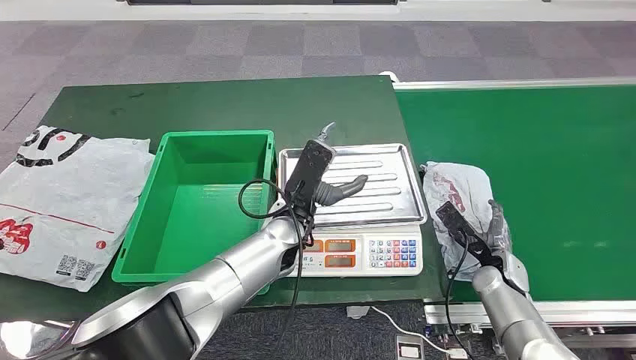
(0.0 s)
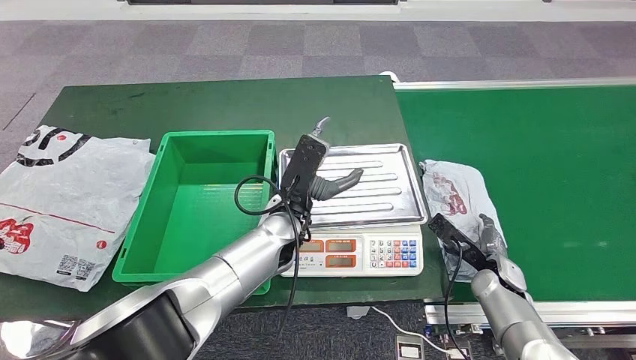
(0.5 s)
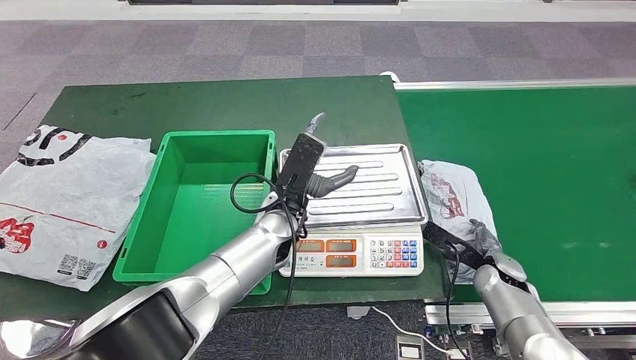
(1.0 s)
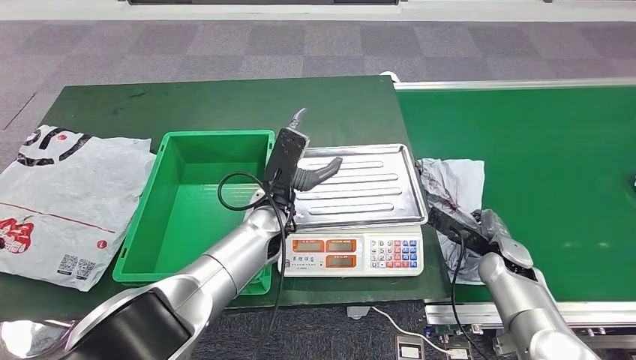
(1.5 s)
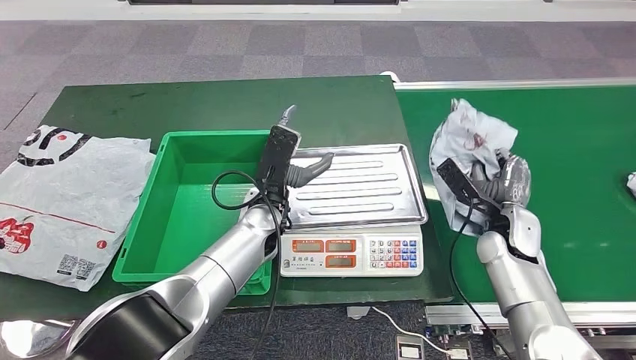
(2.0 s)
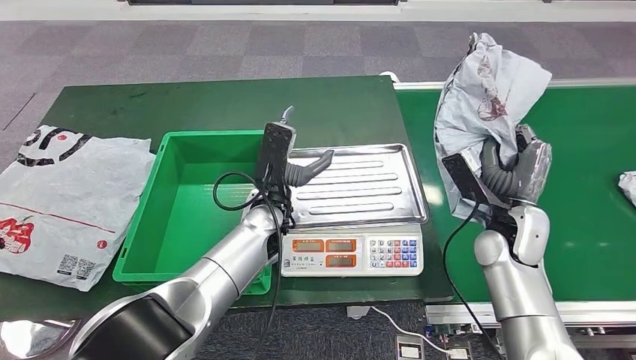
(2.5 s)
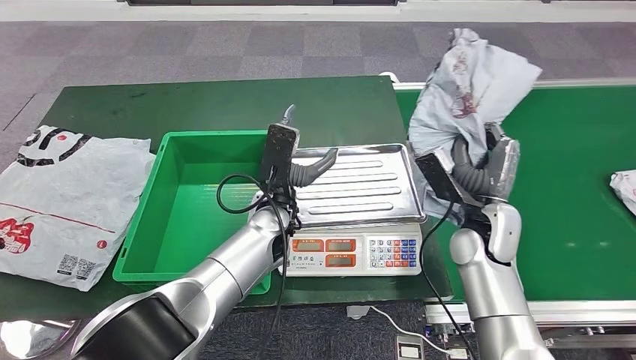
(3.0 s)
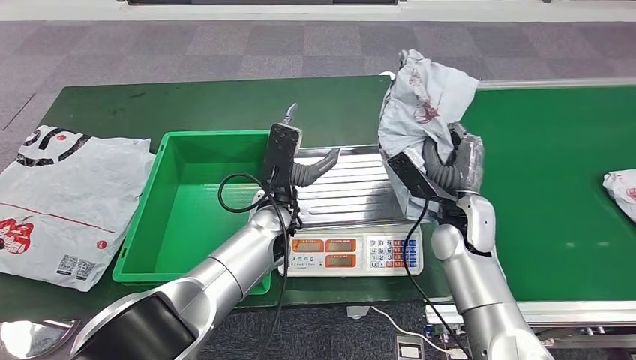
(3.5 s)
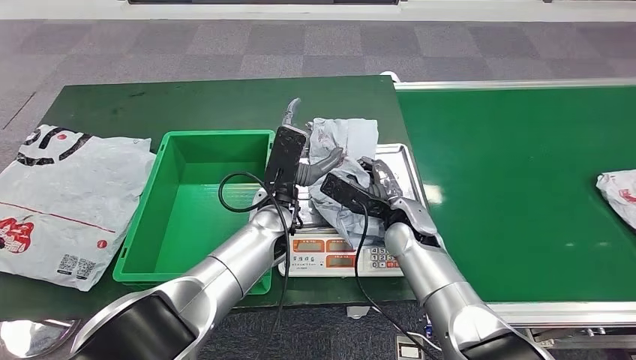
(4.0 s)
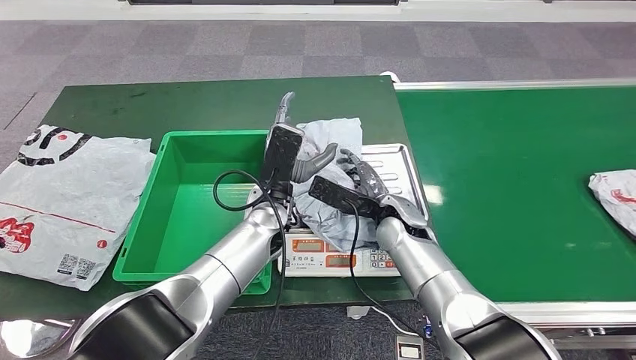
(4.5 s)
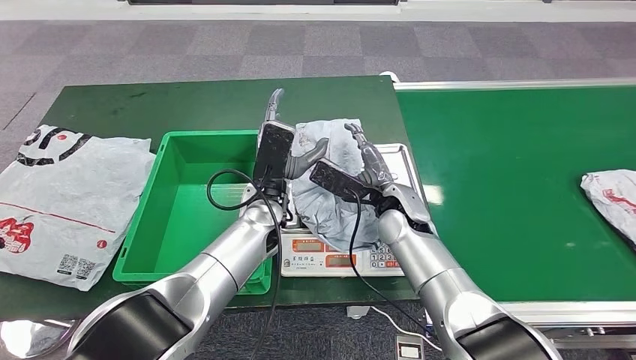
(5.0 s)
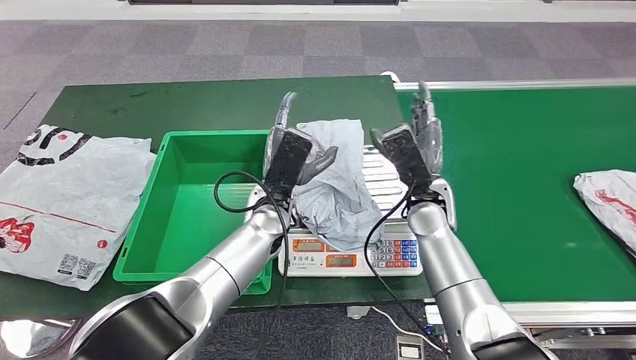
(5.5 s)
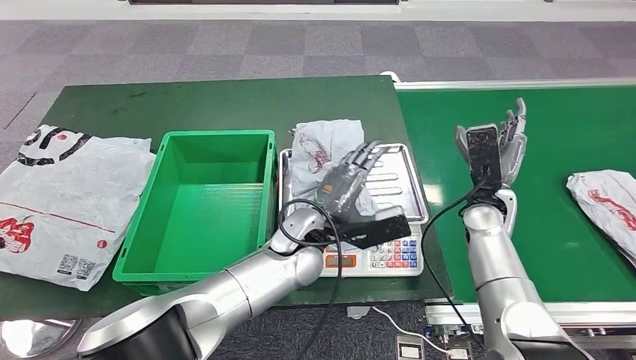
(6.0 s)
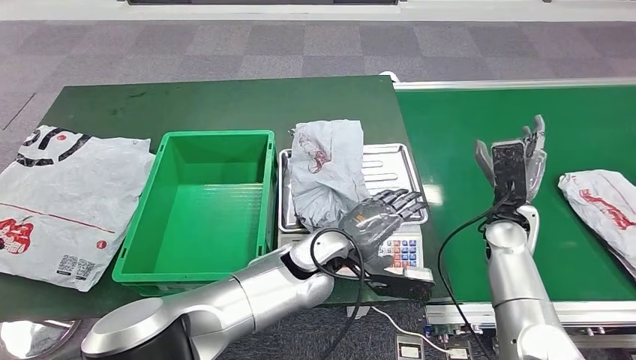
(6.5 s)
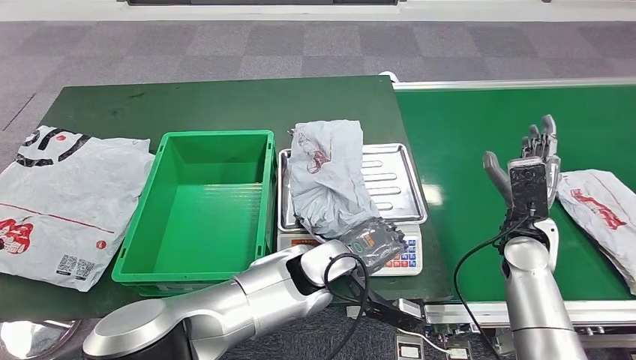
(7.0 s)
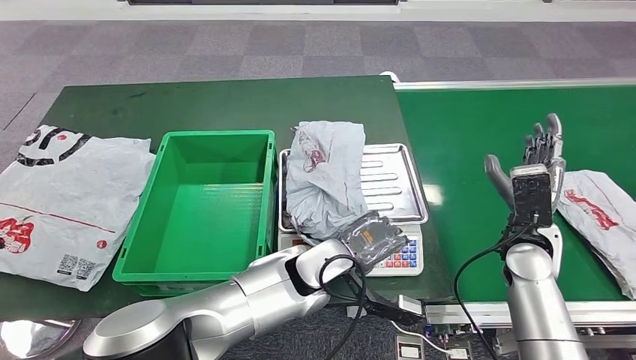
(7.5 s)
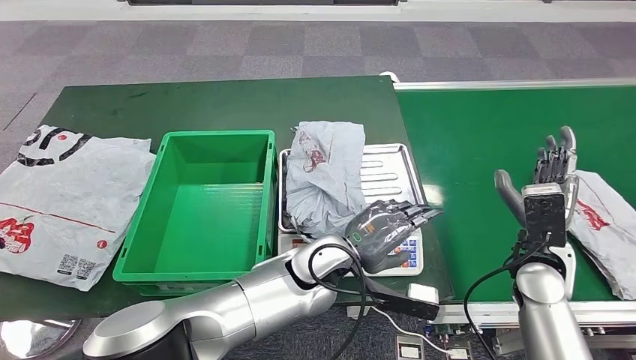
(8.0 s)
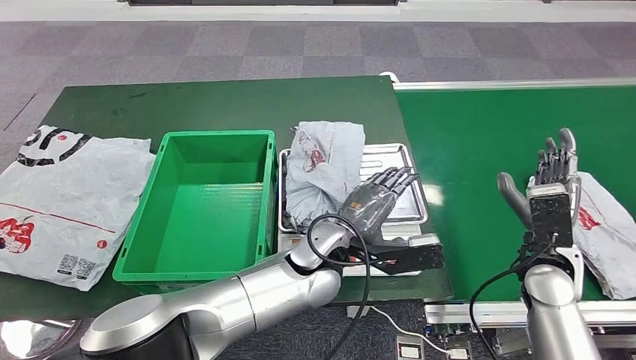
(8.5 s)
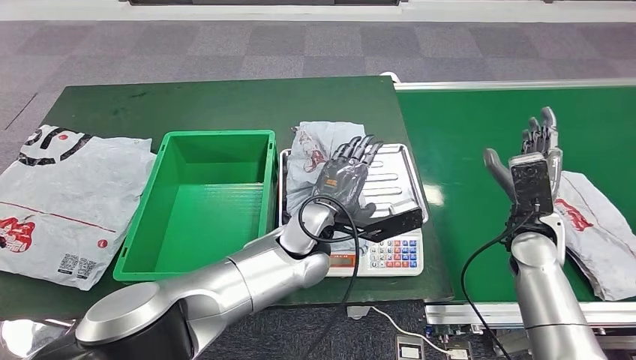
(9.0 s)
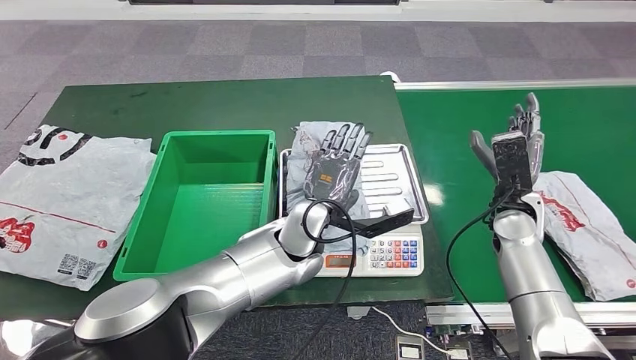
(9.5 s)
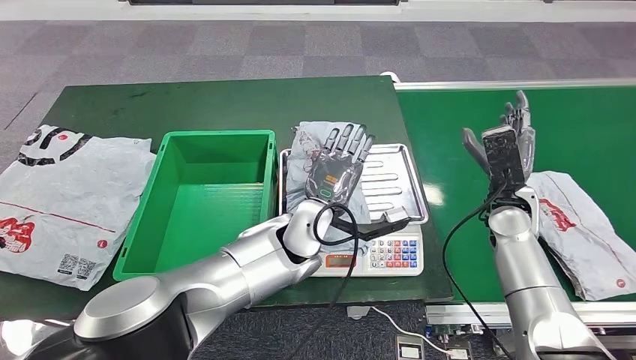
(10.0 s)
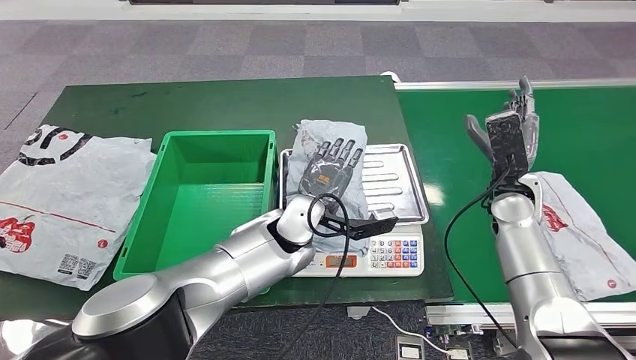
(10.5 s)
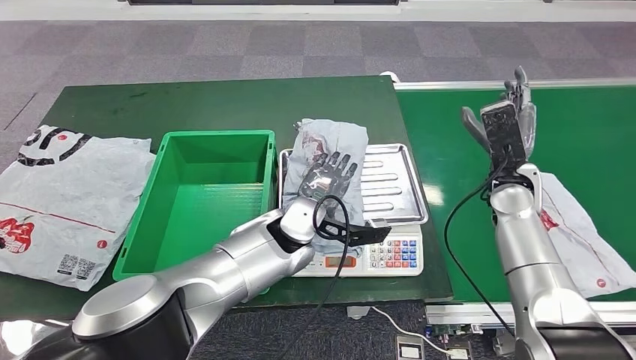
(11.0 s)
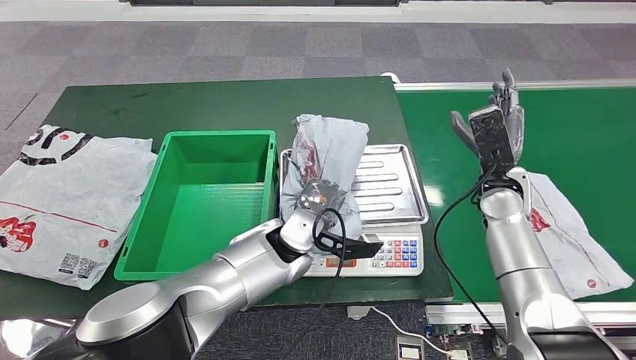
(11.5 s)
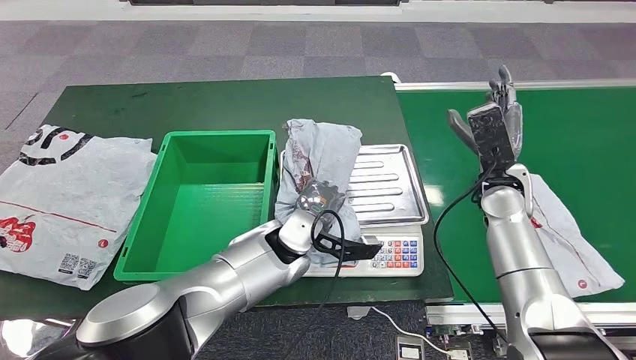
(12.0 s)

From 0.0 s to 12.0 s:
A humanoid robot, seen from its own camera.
Step, from 0.0 s to 2.0 s: Take the parcel off the conveyor belt.
Step, from 2.5 s to 5.5 s: Place the parcel onto the inbound machine.

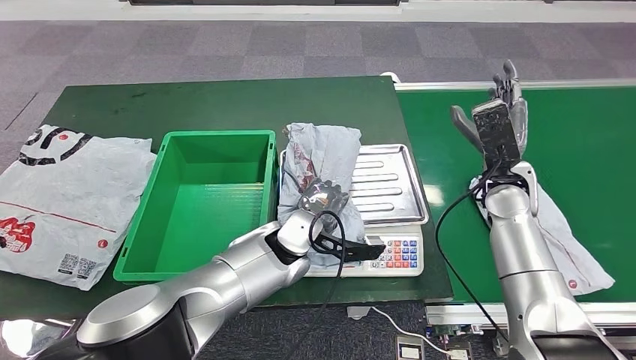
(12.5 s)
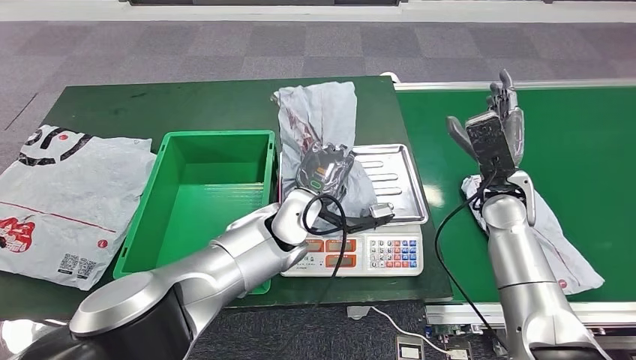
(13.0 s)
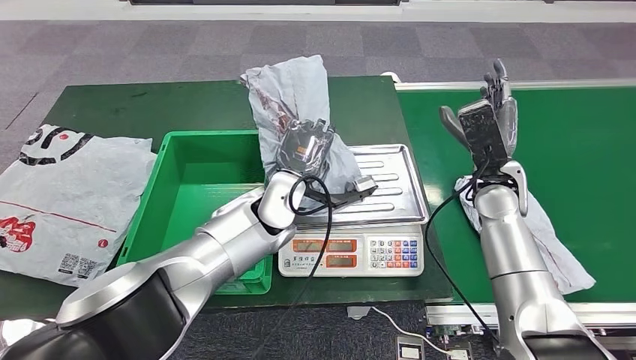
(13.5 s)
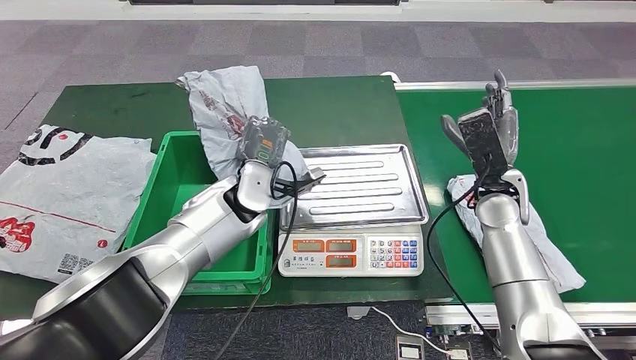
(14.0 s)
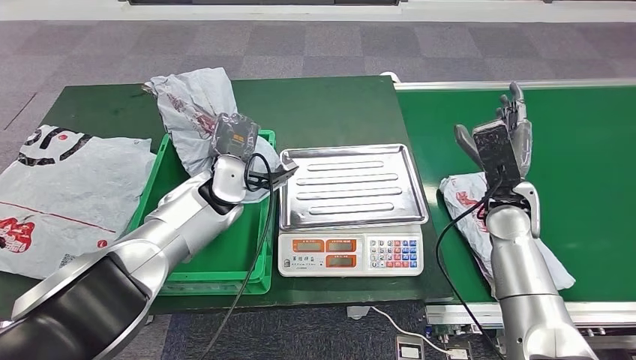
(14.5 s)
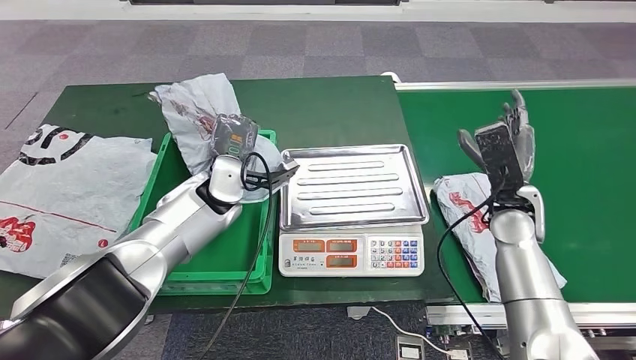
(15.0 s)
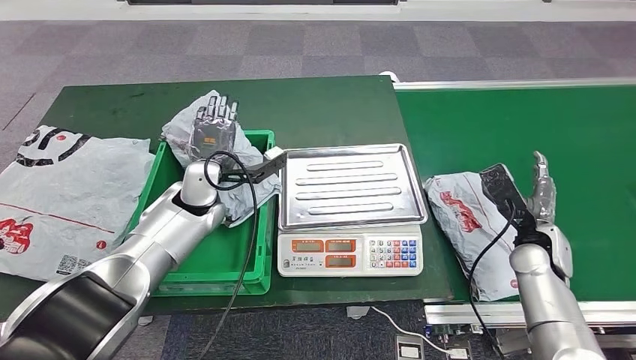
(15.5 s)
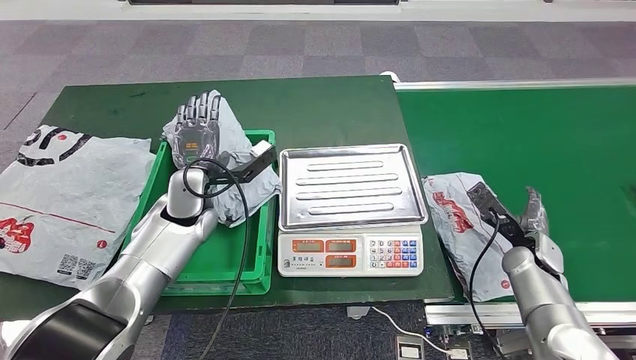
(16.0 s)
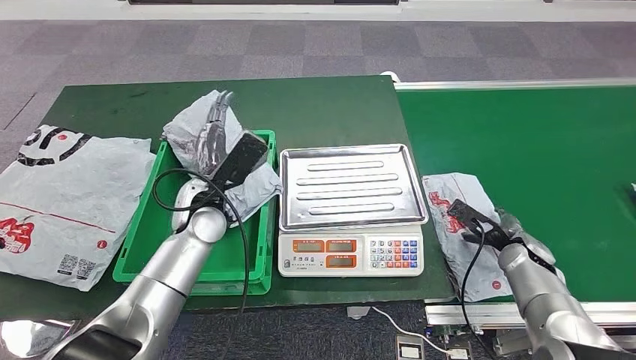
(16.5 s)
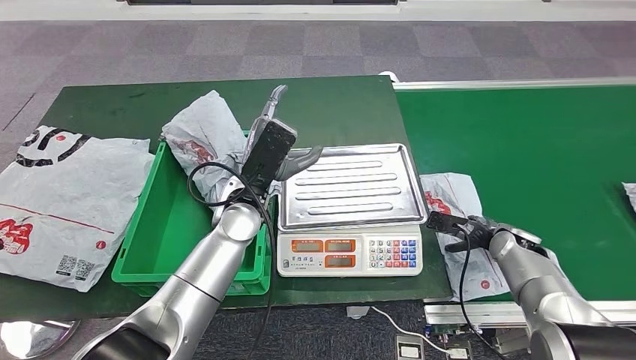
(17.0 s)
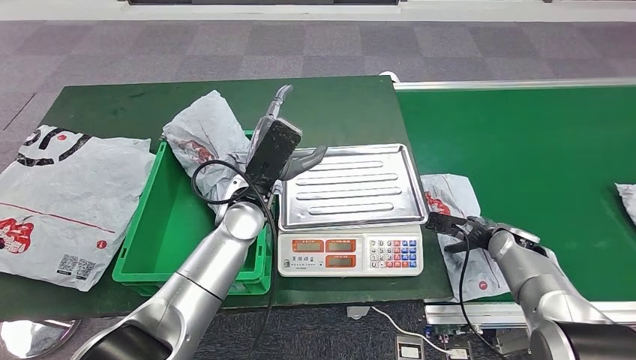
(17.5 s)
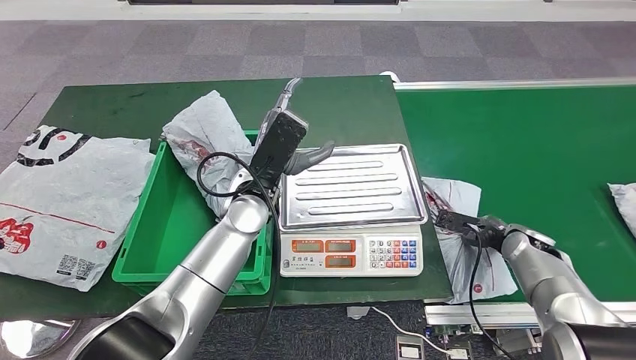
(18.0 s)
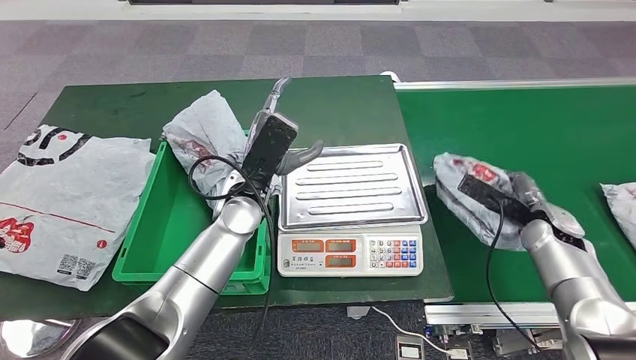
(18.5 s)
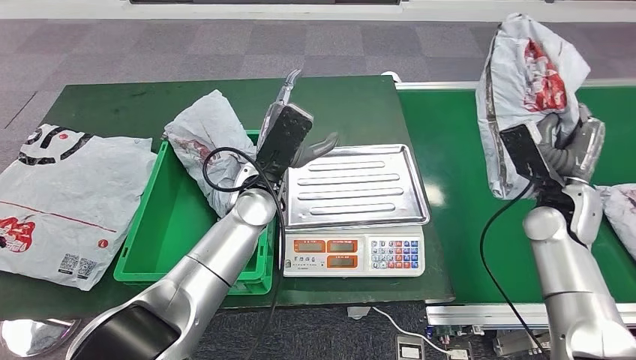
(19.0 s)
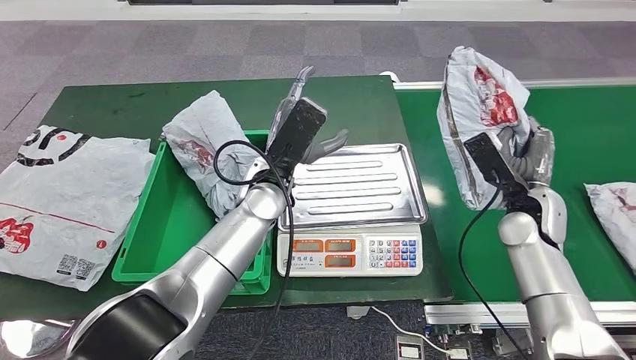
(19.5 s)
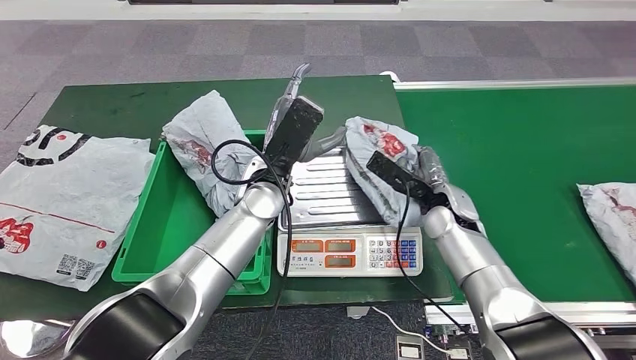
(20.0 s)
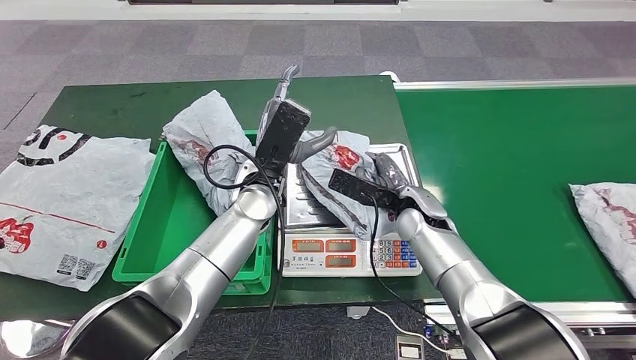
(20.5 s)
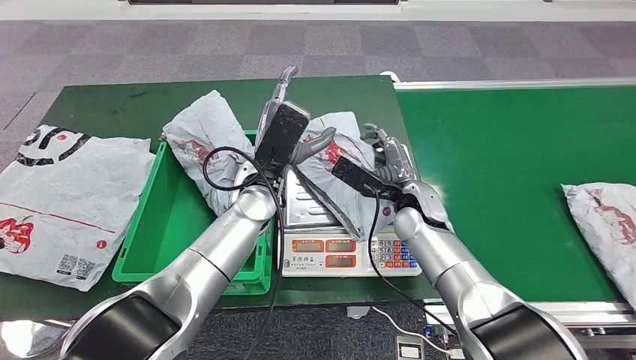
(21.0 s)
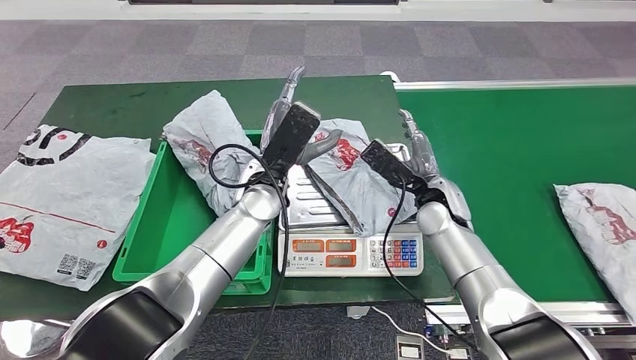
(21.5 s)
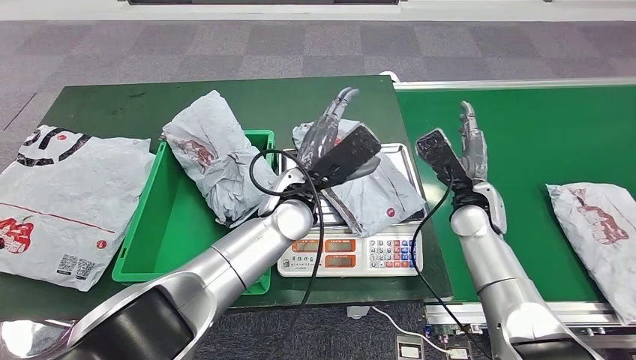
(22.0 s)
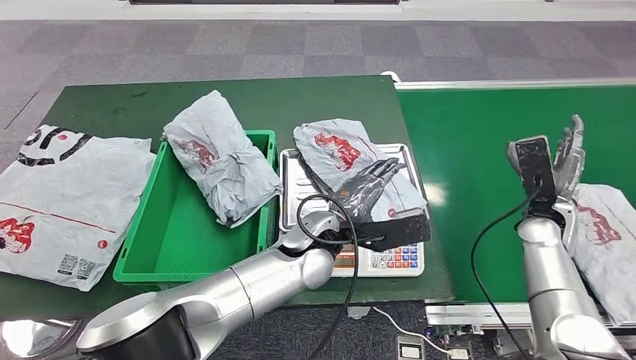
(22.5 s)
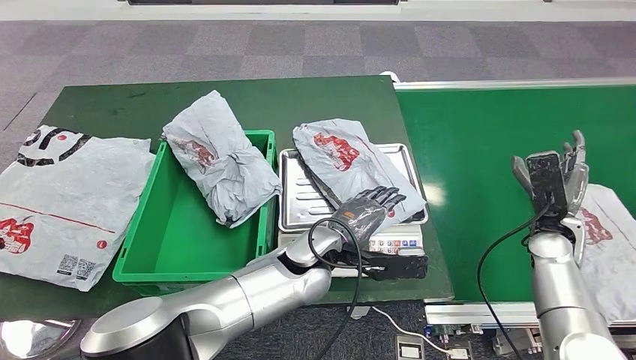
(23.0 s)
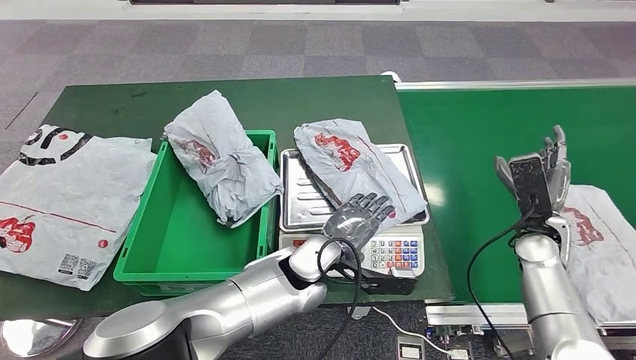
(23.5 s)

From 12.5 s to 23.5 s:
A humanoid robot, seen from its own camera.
Step, from 13.5 s to 16.5 s: Put the parcel inside the courier box.
Step, from 17.0 s to 19.0 s: Pick up the parcel from the conveyor belt.
Step, from 19.5 s to 21.5 s: Place the parcel onto the inbound machine.
